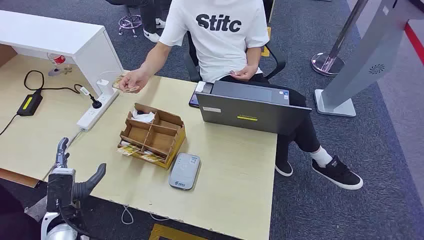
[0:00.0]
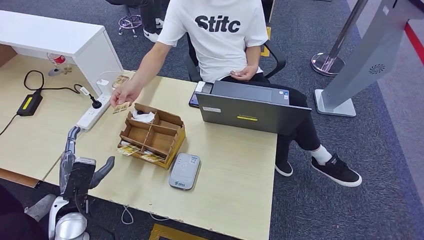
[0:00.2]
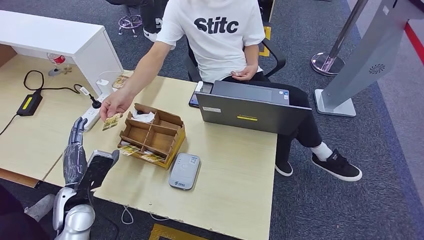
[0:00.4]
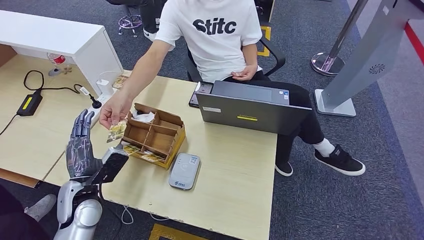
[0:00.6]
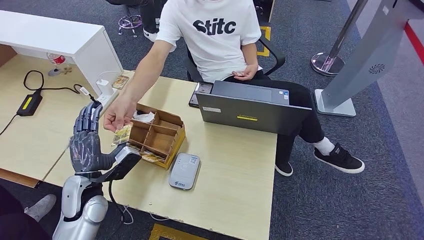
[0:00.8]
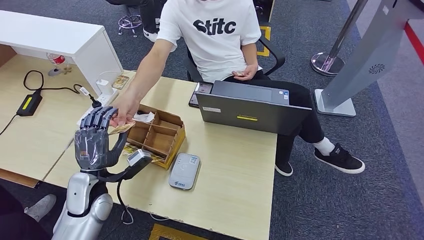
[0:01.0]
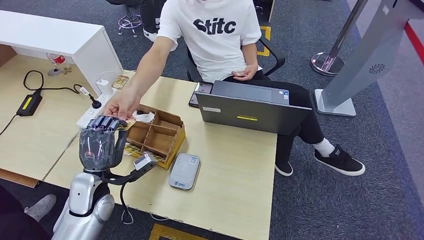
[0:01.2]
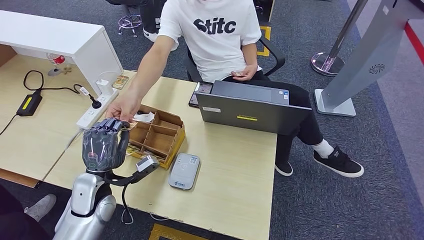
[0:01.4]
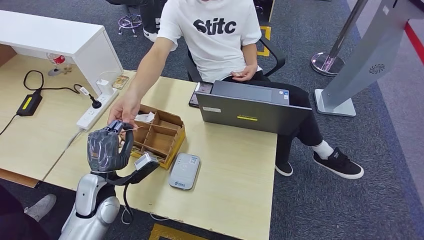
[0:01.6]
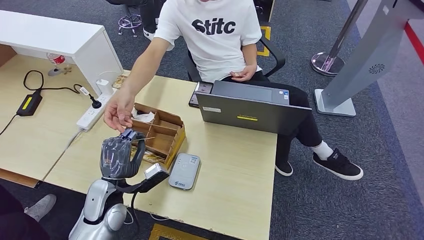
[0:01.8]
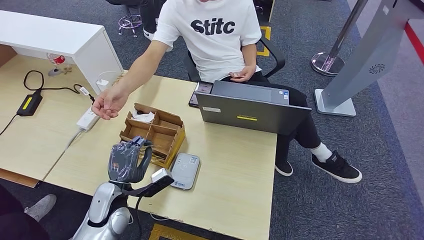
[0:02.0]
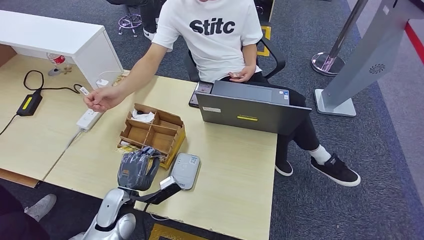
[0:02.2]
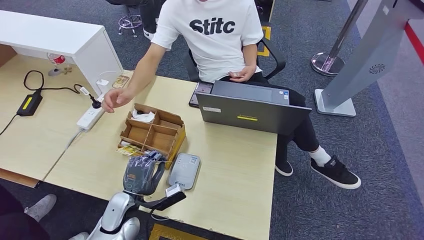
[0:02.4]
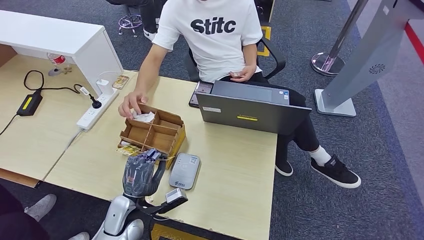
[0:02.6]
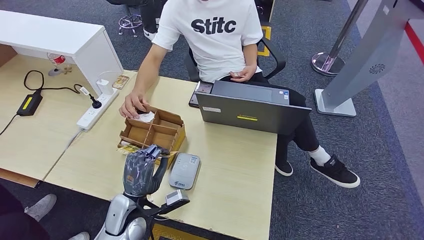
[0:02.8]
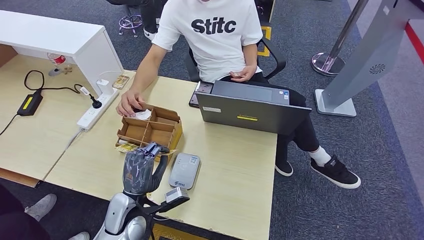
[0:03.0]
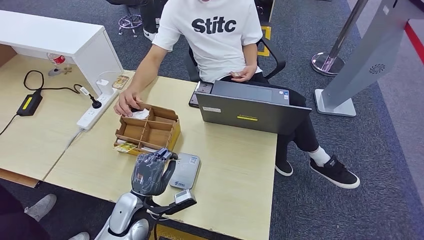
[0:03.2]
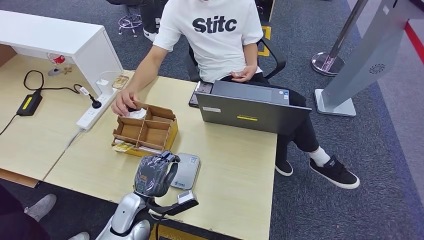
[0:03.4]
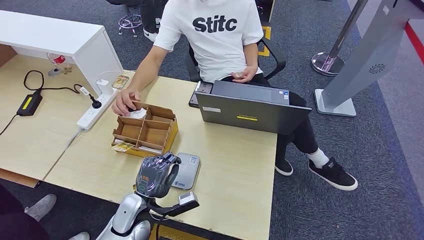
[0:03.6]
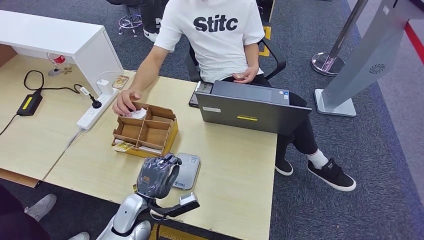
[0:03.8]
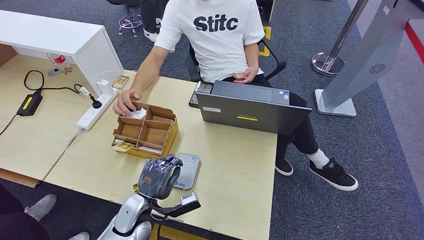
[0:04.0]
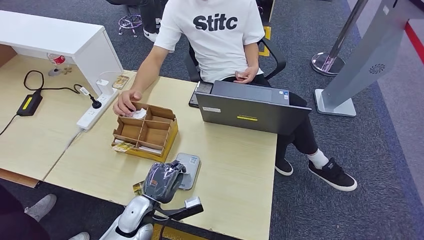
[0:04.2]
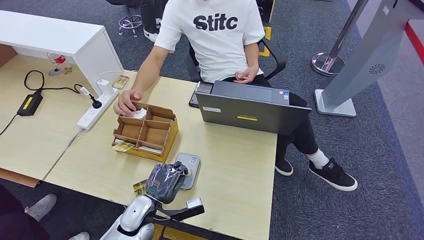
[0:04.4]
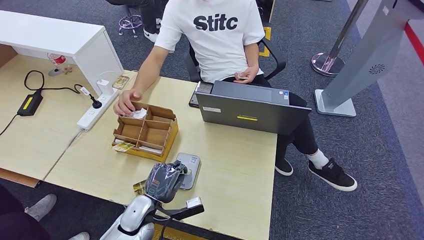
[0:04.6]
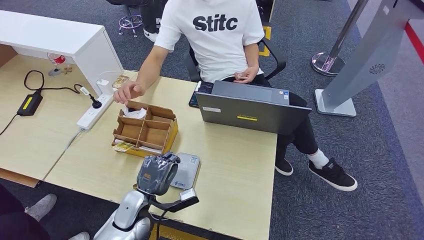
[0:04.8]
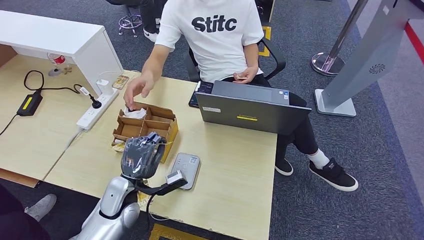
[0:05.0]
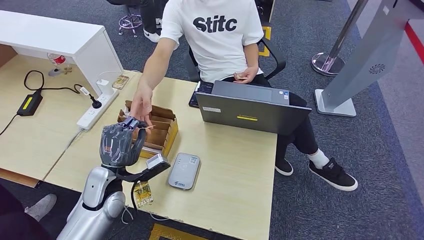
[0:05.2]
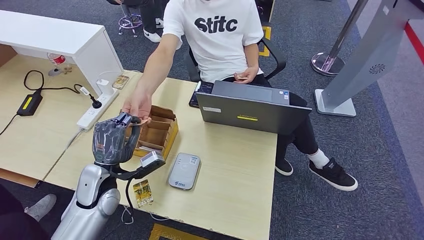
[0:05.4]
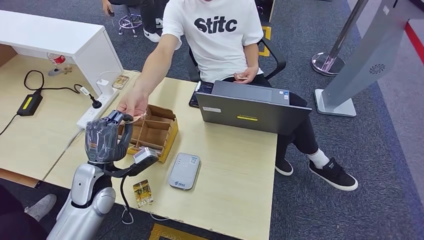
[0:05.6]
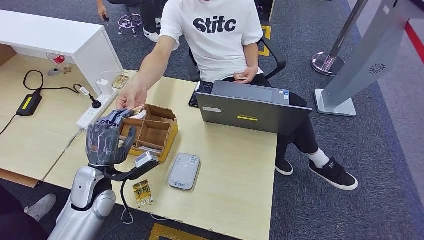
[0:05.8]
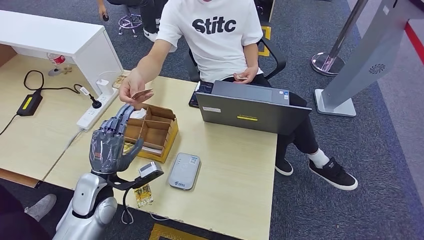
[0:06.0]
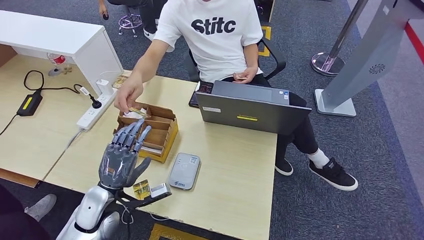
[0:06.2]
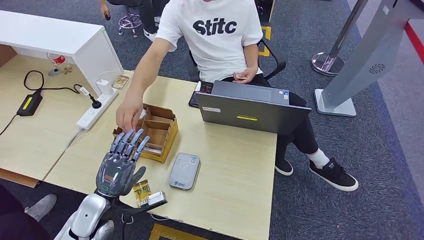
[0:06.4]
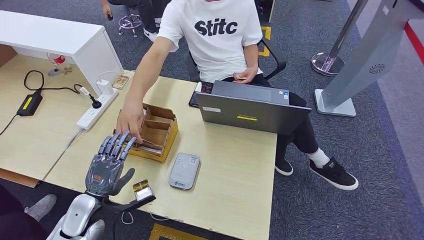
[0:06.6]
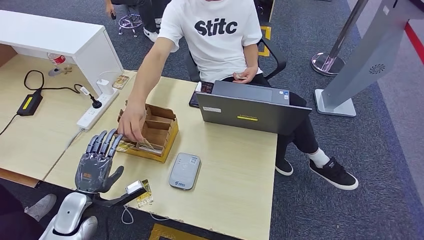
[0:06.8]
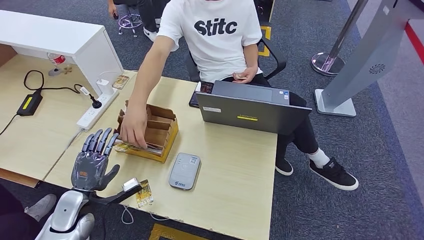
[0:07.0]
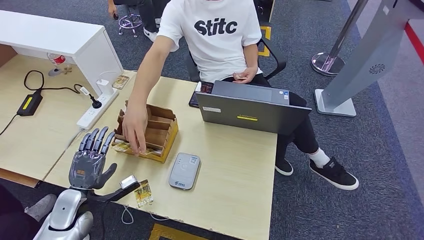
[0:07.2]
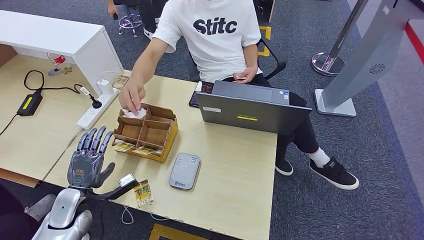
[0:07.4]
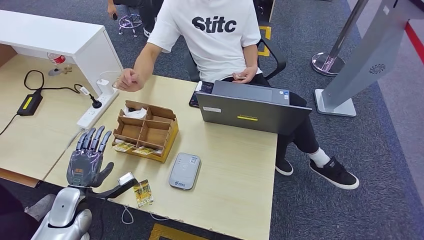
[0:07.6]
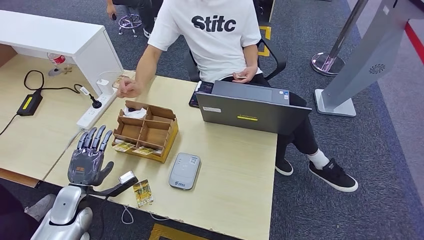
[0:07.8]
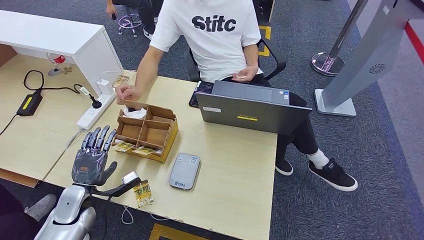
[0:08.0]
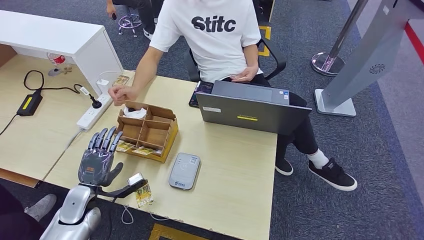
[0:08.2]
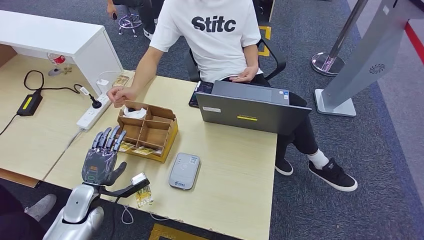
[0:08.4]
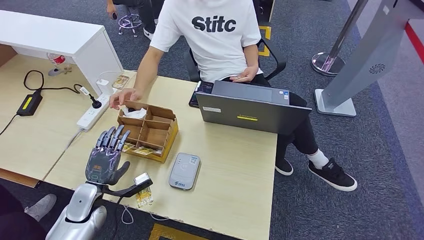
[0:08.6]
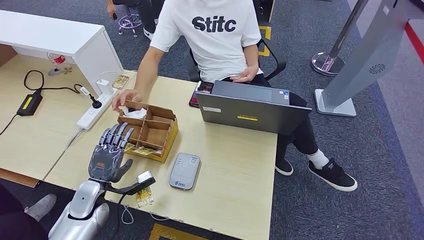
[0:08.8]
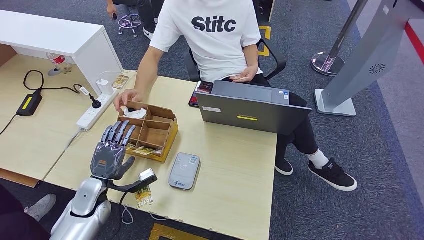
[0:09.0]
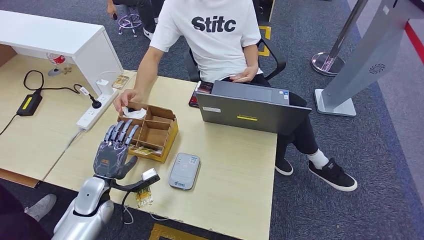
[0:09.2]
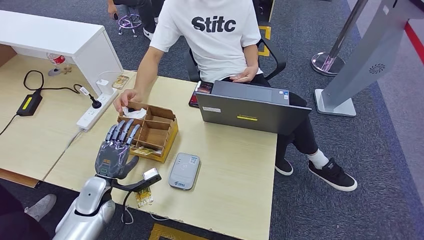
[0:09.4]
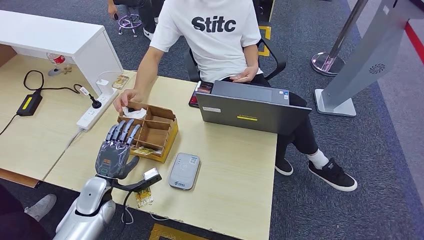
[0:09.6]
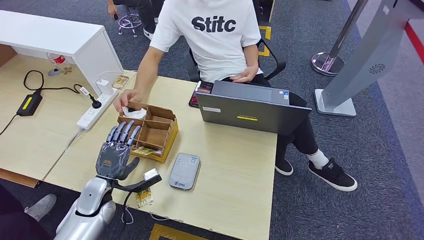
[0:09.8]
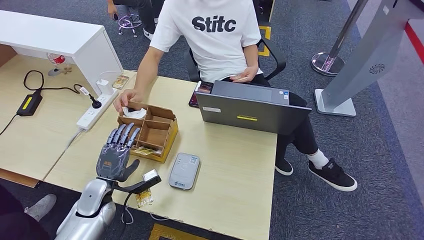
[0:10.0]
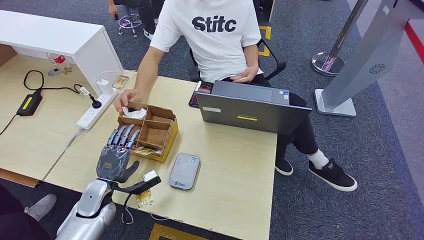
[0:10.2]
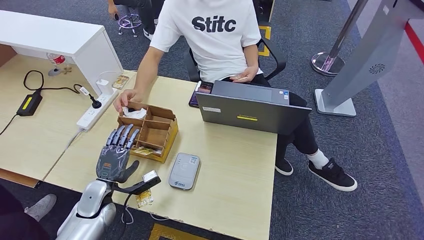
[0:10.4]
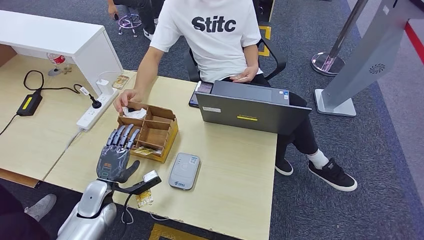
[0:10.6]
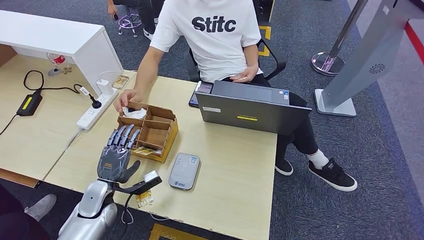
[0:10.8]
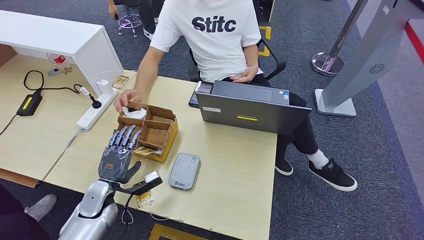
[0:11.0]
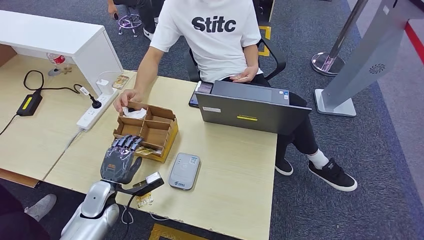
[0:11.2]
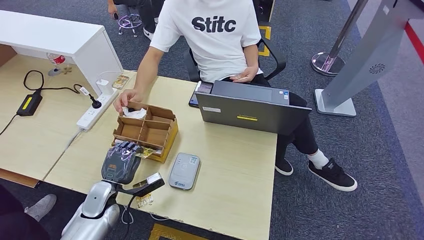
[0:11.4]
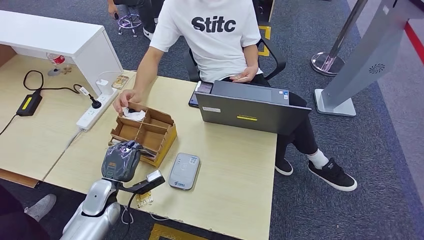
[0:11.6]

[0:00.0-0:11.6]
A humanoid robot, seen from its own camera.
Step, 0:00.0 to 0:02.2: Take the ID card from the person's hand.
Step, 0:02.6 to 0:04.8: Place the ID card on the card reader.
Step, 0:05.0 to 0:06.4: Hand the ID card to the person.
0:01.4 to 0:02.8: The left hand shifts about 10 cm to the right and downward.
0:04.4 to 0:05.8: The left hand travels upward and to the left by approximately 15 cm.
0:05.8 to 0:07.2: The left hand goes some 10 cm to the left, downward and backward.
0:07.2 to 0:08.8: The hands move only a little.
0:08.8 to 0:10.2: The hands make only small movements.
0:10.2 to 0:11.6: Both hands stay put.

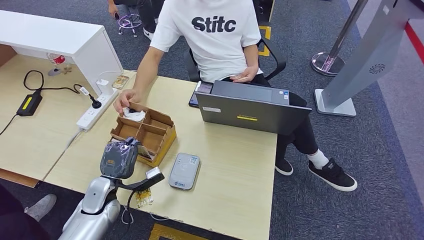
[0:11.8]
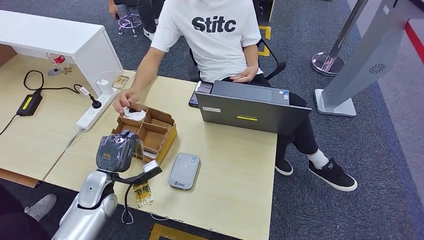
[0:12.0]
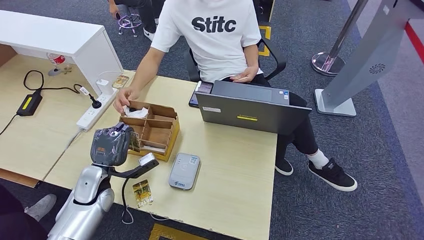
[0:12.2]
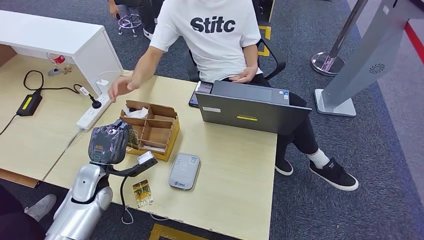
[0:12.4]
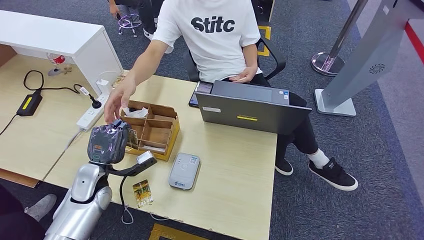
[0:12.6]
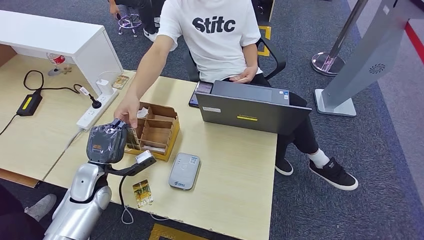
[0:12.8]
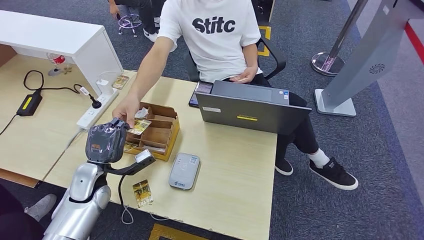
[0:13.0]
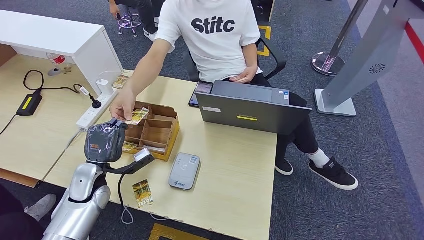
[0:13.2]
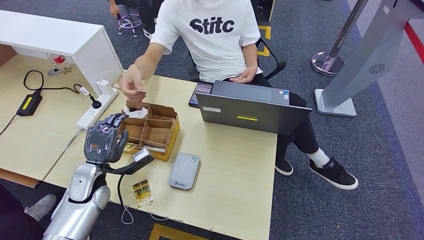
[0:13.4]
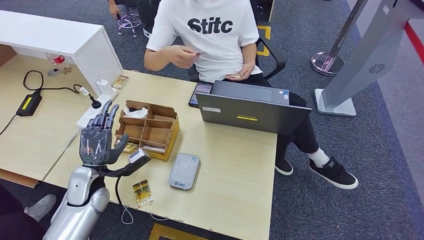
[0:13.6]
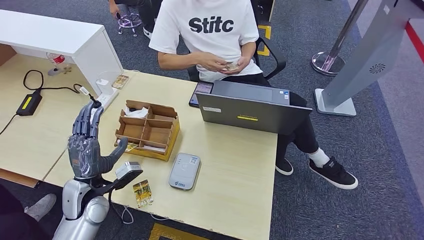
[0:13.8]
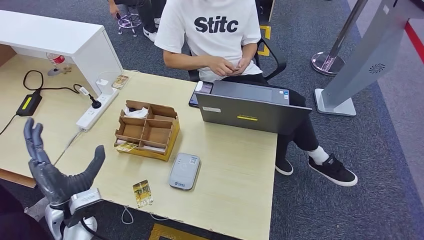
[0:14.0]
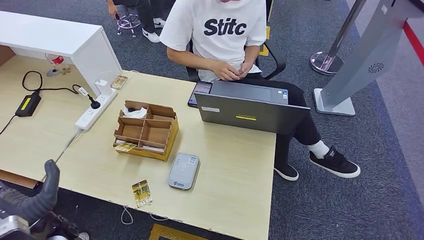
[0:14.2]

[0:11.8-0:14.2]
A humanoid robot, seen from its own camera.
Step, 0:12.8 to 0:14.2: Hand the room key to the person.
0:11.8 to 0:13.0: The left hand heads upward, covering about 5 cm.
